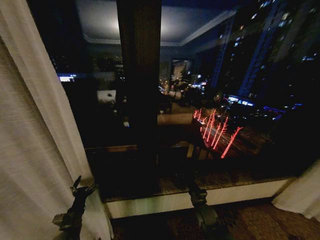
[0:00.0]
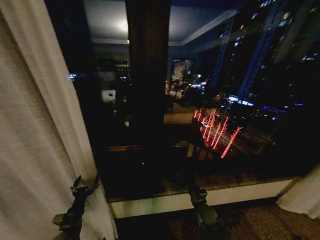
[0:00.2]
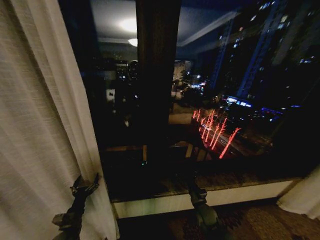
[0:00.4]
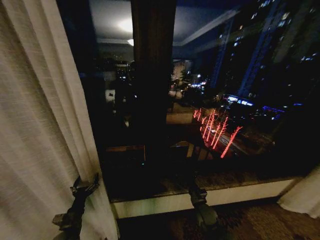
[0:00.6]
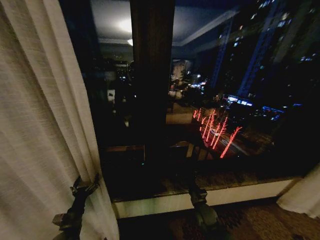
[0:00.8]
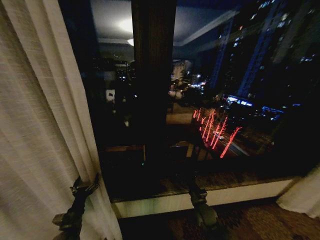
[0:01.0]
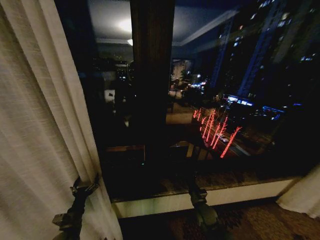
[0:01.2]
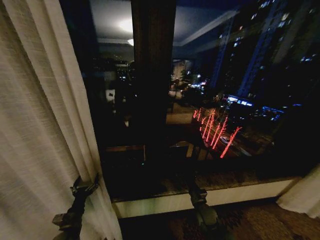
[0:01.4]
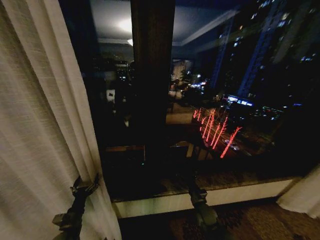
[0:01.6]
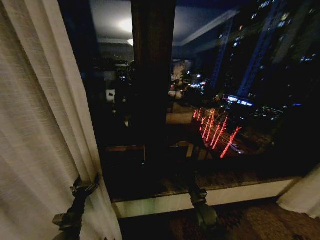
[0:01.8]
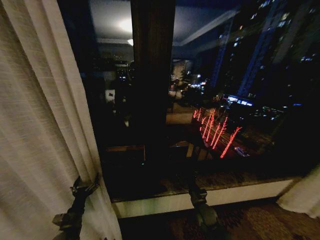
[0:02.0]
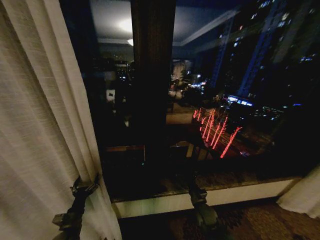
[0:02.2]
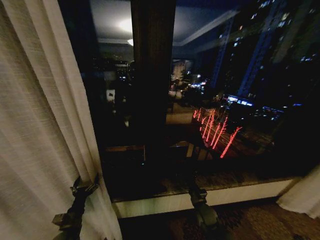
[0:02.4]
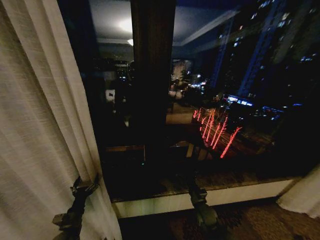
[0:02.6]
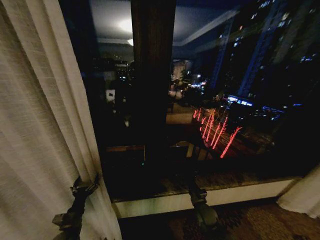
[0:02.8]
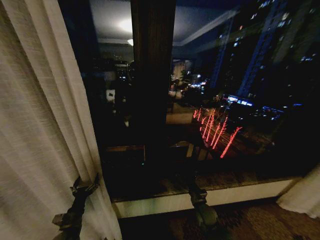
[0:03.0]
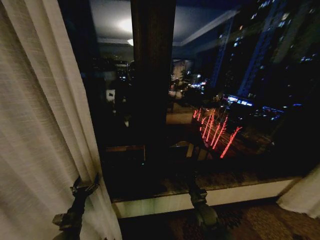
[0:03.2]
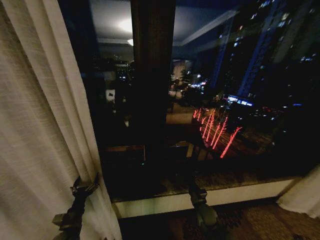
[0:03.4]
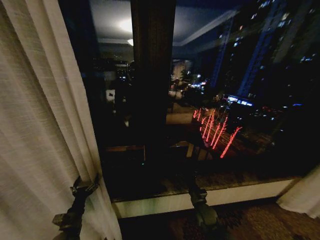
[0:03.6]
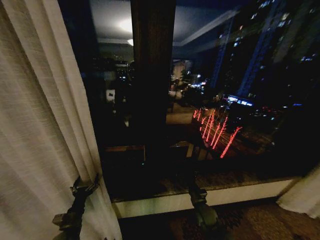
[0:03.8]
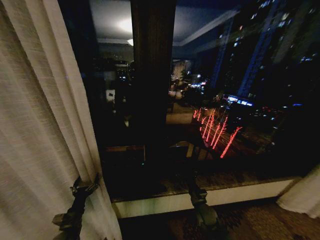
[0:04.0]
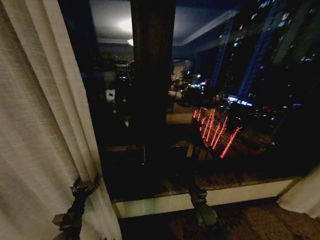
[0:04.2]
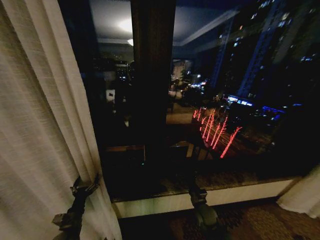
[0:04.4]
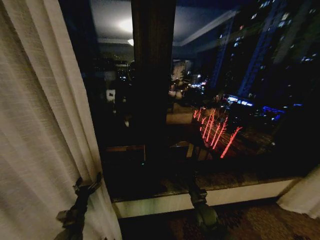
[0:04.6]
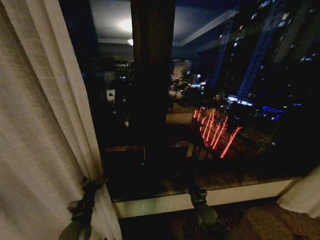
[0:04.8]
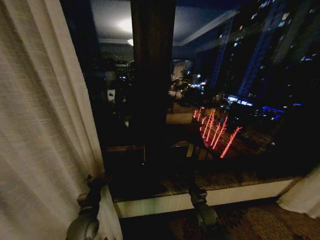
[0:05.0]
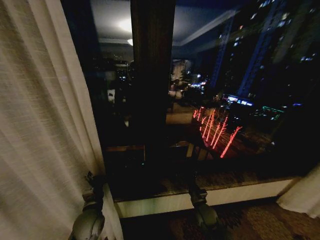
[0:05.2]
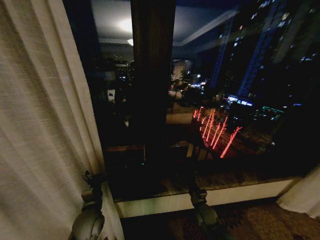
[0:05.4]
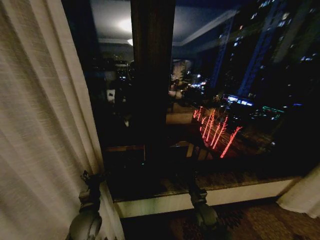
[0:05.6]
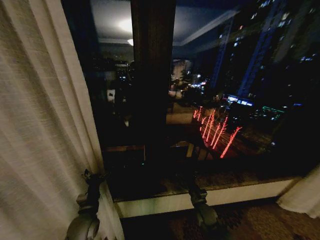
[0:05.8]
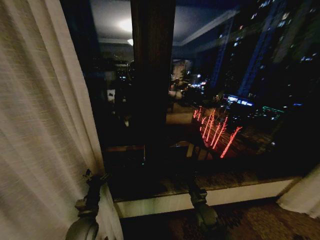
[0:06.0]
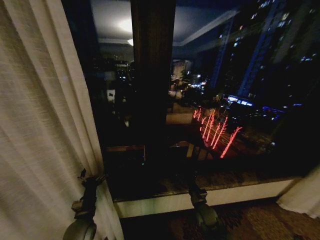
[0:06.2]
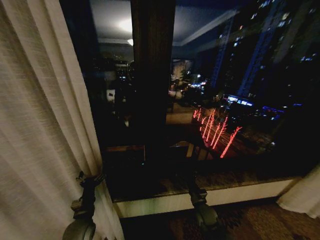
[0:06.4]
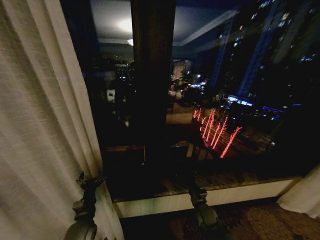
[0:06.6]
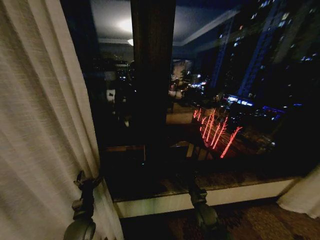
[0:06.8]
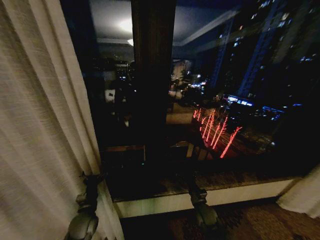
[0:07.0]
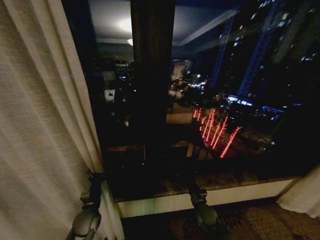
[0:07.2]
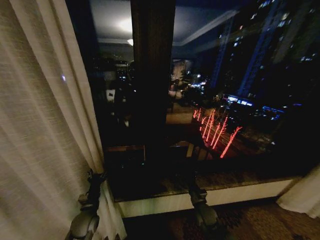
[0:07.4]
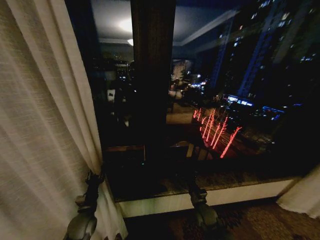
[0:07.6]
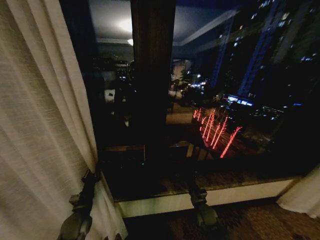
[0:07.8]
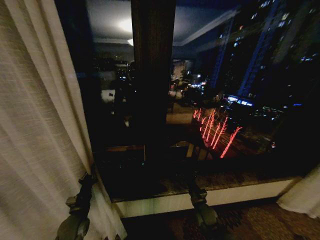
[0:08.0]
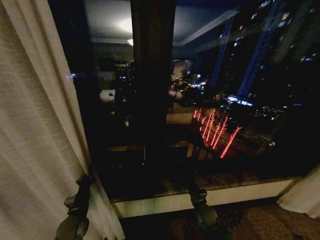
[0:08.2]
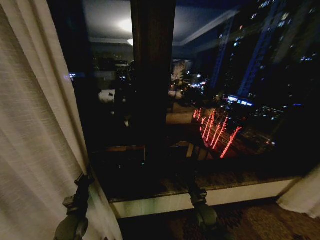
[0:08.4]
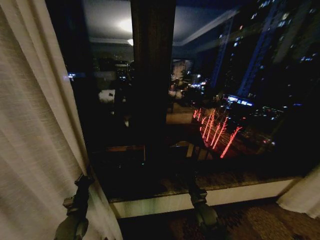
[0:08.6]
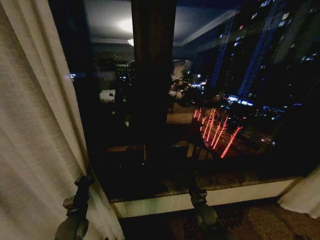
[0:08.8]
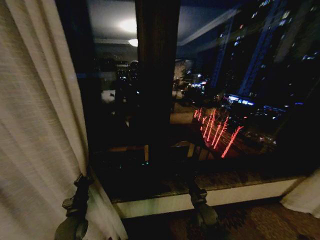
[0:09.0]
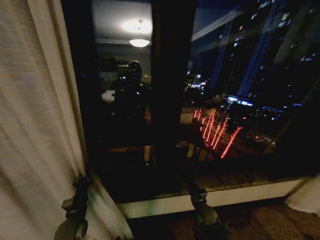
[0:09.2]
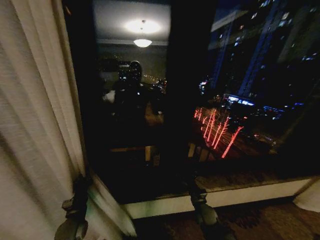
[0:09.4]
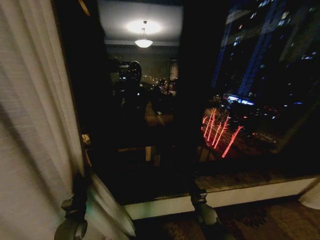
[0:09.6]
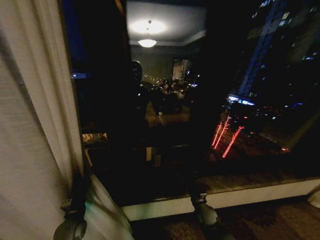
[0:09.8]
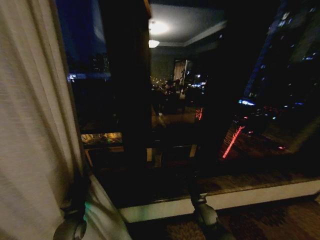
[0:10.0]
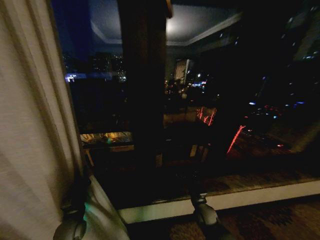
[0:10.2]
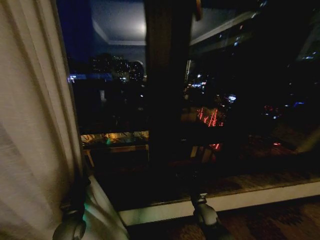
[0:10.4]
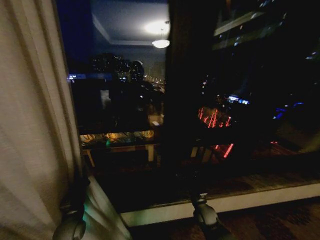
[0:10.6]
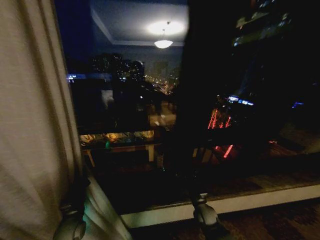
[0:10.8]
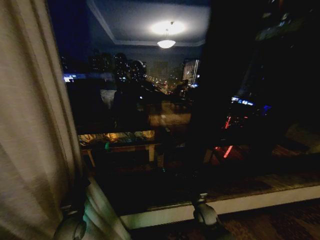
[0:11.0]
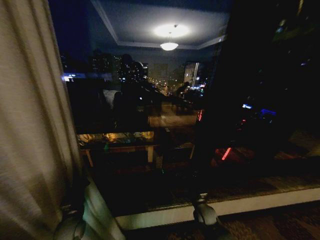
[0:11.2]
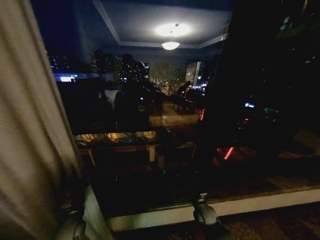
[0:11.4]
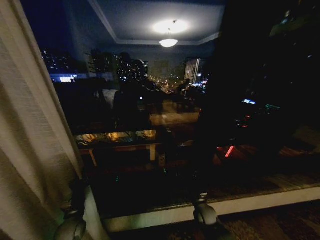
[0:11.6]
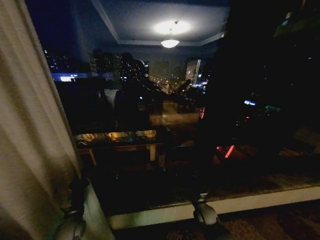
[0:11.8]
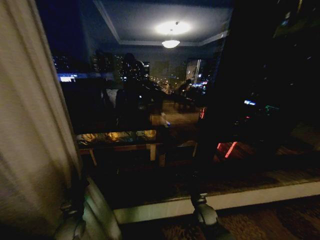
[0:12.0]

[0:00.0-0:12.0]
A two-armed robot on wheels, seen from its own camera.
Task of the whole recording: Open the curtains by pulling them apart, changing their state from closed to fully open.
0:00.0 to 0:04.4: Neither gripper changes place.
0:04.4 to 0:06.0: The left gripper shifts some 10 cm to the right.
0:06.0 to 0:07.6: The left gripper closes.
0:07.6 to 0:09.0: The left gripper closes.

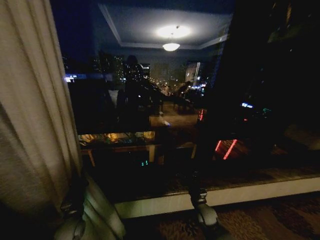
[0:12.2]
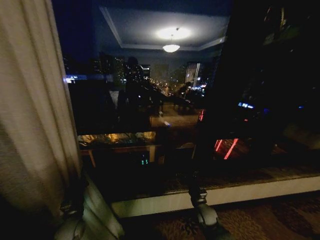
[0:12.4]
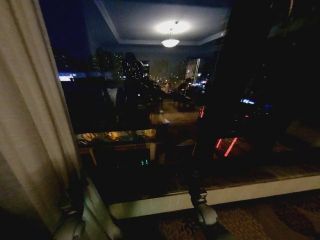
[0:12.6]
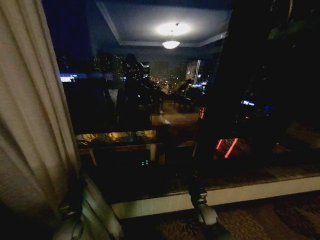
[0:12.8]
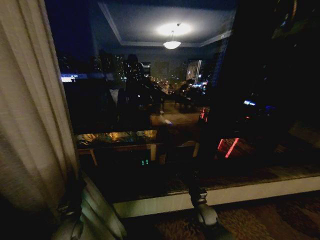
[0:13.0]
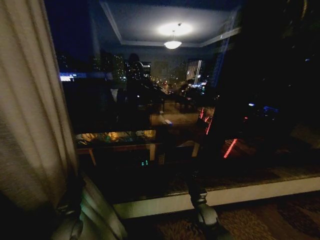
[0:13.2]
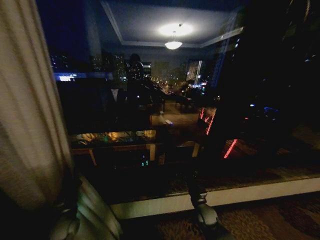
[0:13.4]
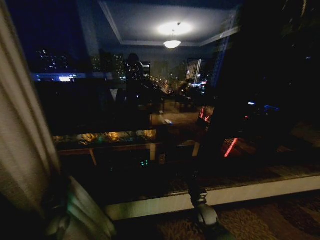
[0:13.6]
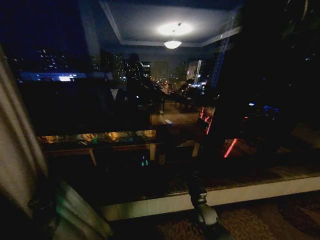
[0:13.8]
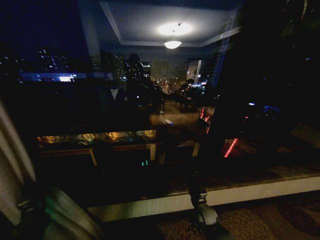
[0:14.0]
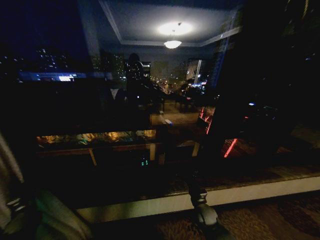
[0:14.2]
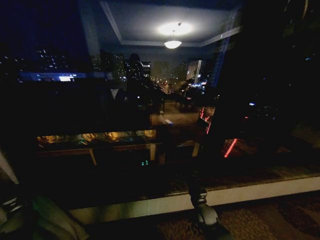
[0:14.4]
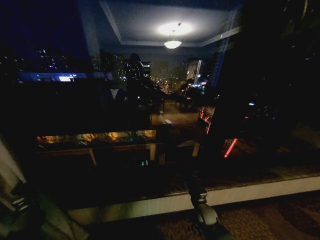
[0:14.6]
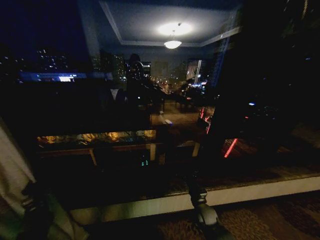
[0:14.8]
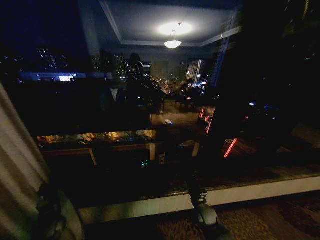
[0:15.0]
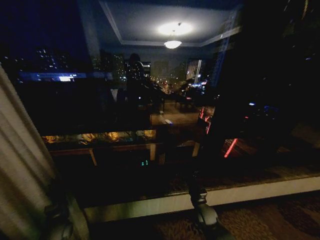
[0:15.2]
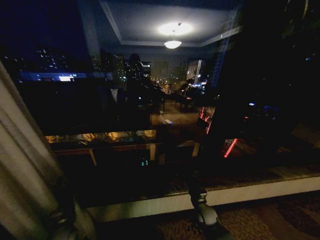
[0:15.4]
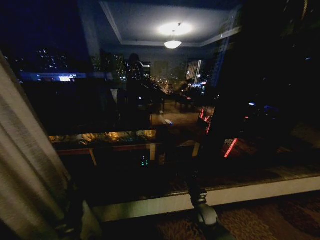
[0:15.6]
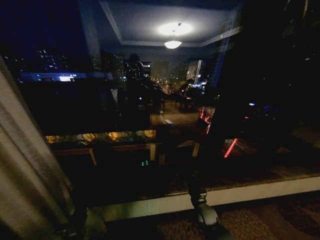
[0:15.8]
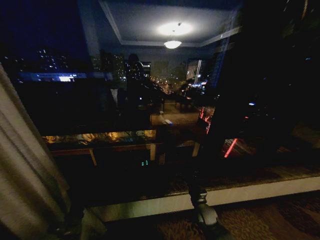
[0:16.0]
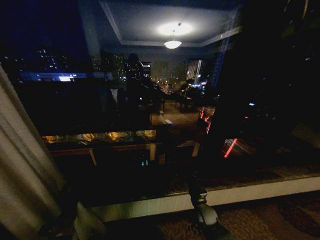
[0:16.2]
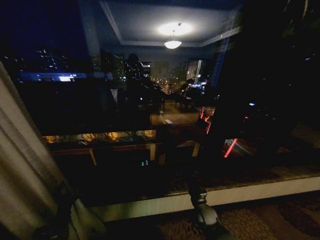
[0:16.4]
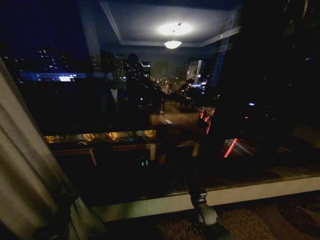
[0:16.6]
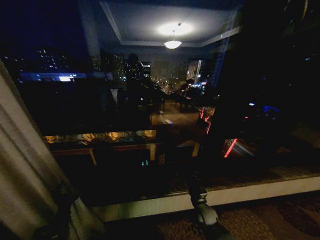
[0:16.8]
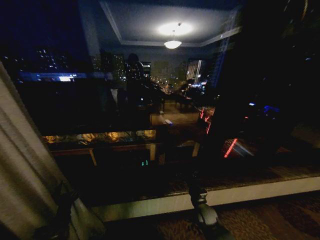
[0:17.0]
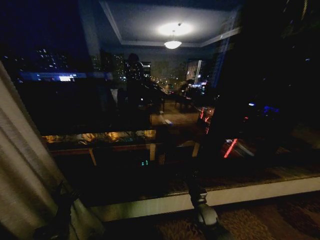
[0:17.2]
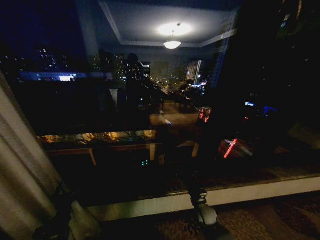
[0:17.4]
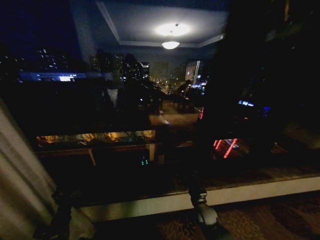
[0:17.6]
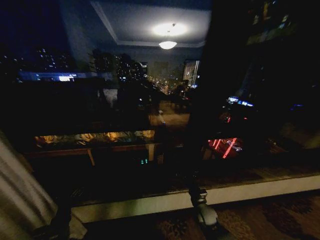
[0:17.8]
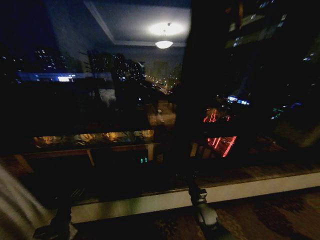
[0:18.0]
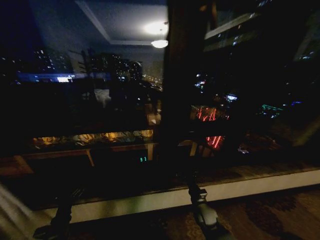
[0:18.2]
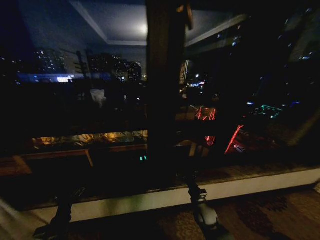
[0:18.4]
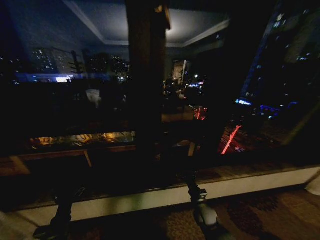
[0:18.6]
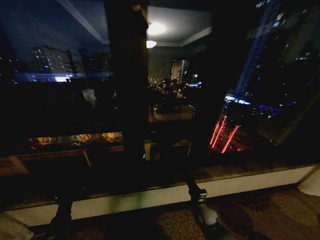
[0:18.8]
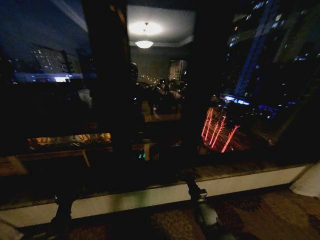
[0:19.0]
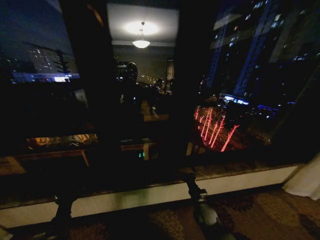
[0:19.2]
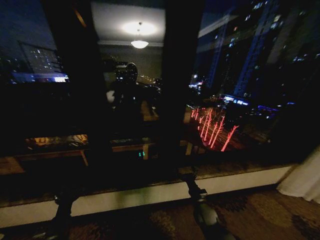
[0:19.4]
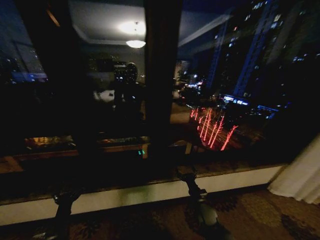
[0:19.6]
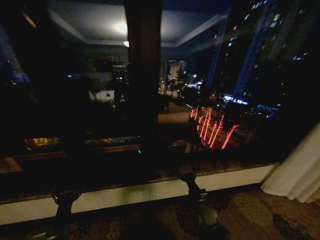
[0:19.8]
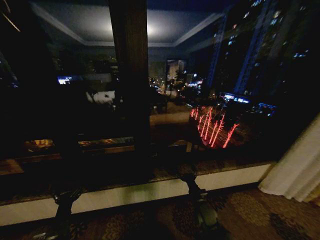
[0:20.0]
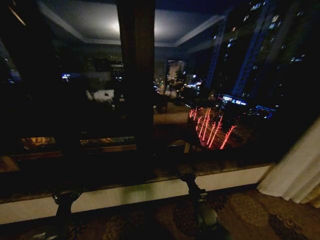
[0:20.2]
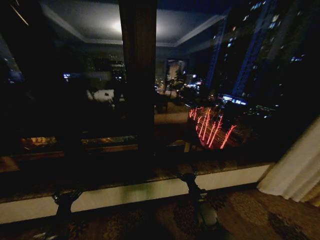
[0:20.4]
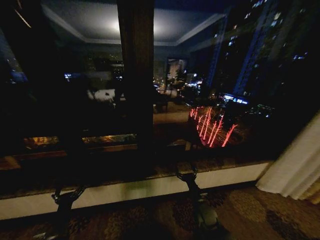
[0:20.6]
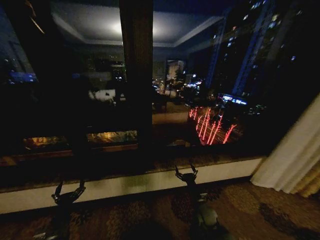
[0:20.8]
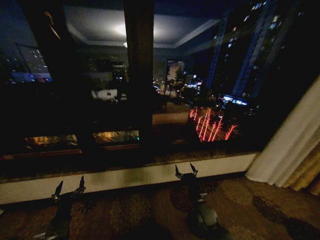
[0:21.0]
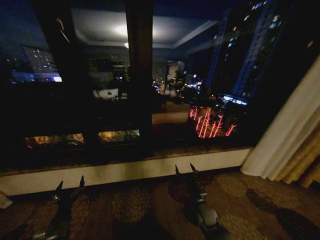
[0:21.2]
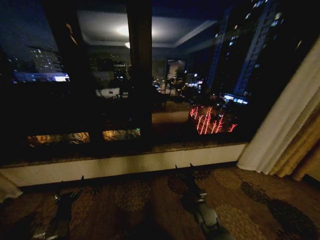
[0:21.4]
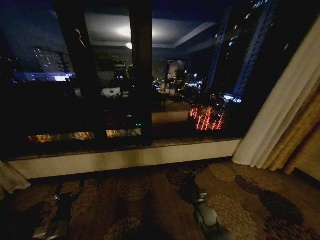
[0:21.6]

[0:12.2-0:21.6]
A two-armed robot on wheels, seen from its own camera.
Task of the whole recording: Open the curtains by pulling them apart, changing their state from closed to fully open.
0:12.2 to 0:13.8: The left gripper is displaced to the left by about 15 cm.
0:13.8 to 0:15.4: The left gripper is displaced to the right by about 10 cm, and opens.
0:15.4 to 0:17.0: The left gripper opens up.
